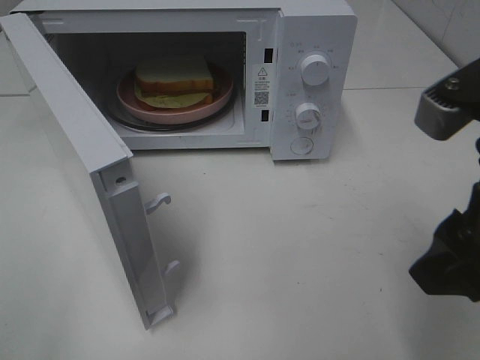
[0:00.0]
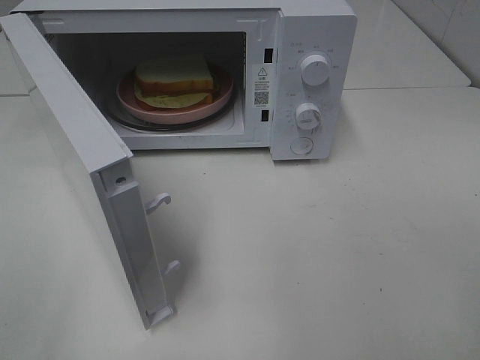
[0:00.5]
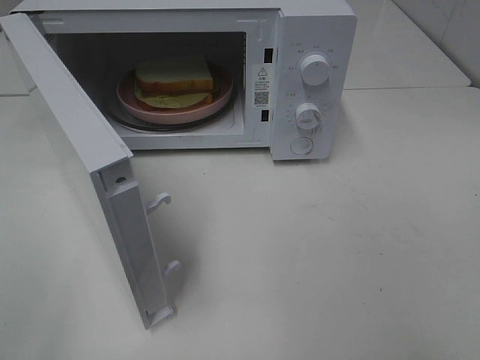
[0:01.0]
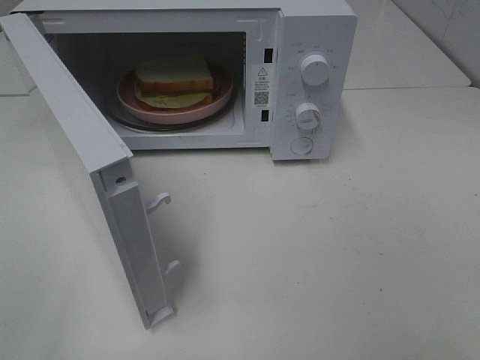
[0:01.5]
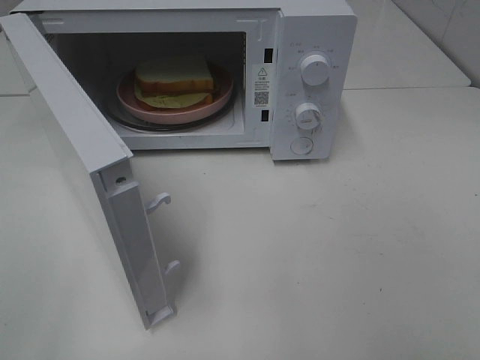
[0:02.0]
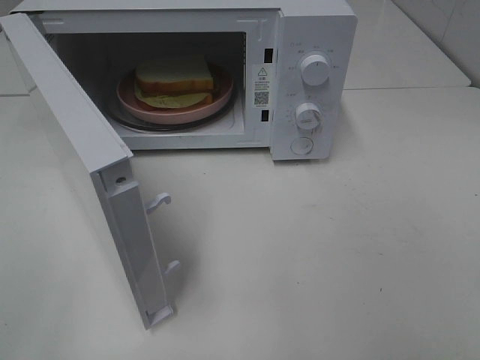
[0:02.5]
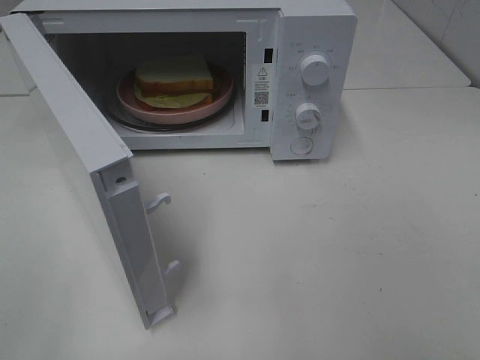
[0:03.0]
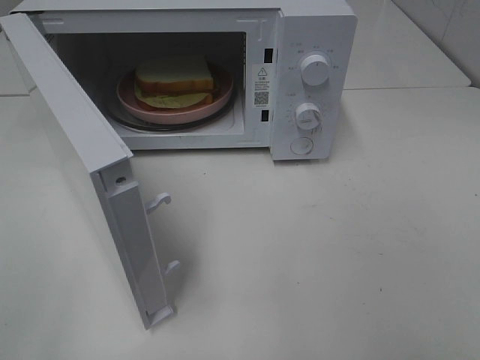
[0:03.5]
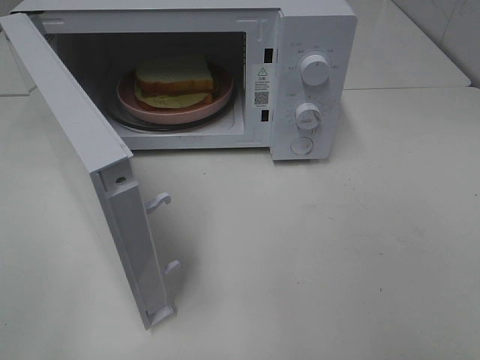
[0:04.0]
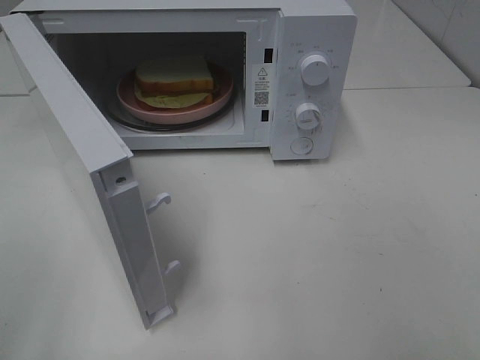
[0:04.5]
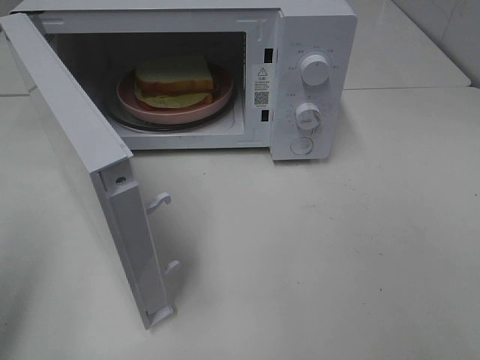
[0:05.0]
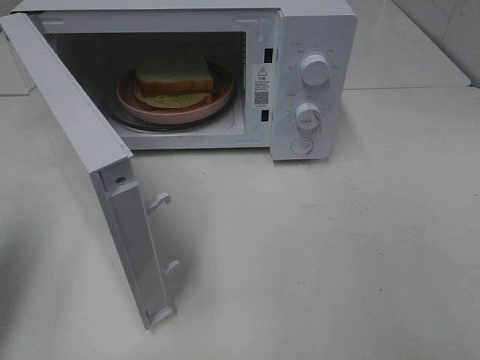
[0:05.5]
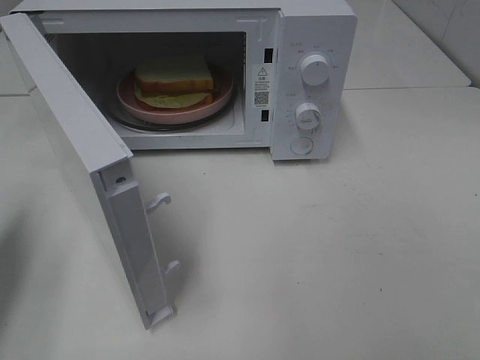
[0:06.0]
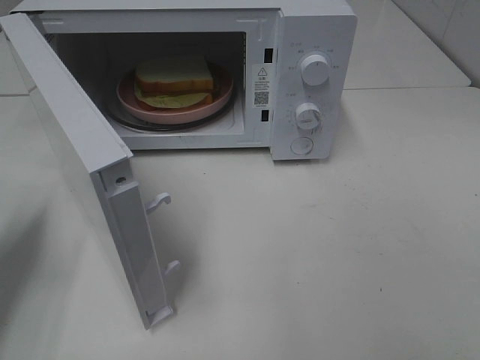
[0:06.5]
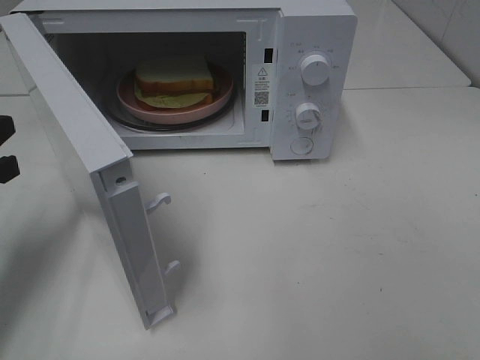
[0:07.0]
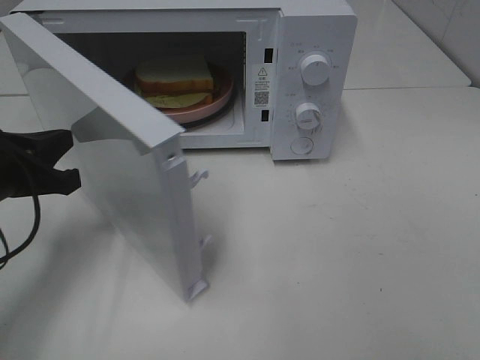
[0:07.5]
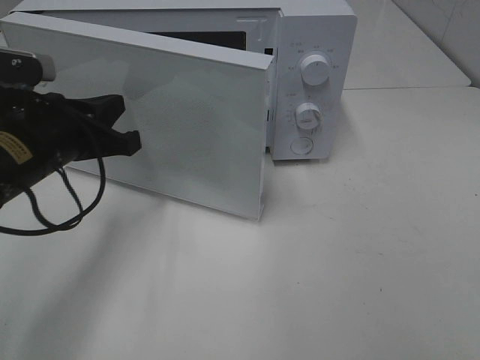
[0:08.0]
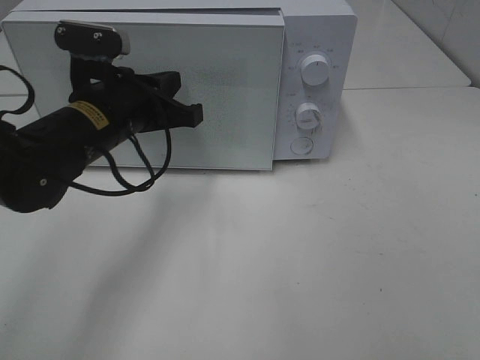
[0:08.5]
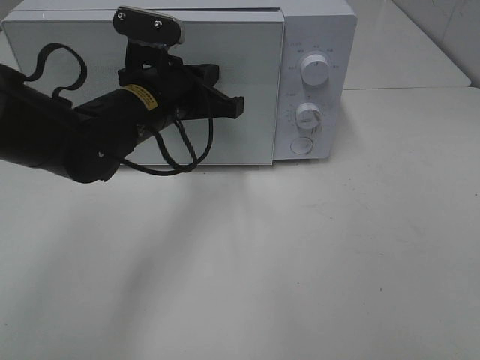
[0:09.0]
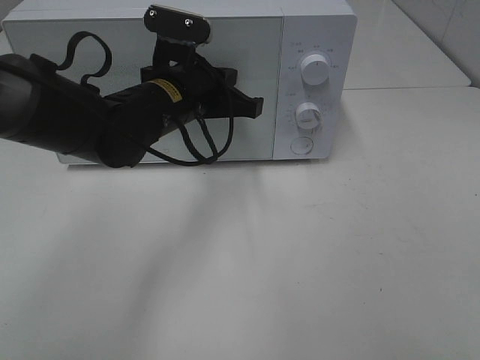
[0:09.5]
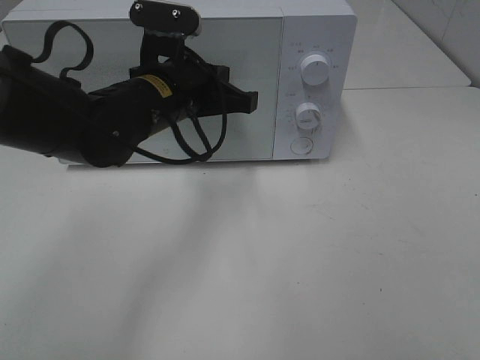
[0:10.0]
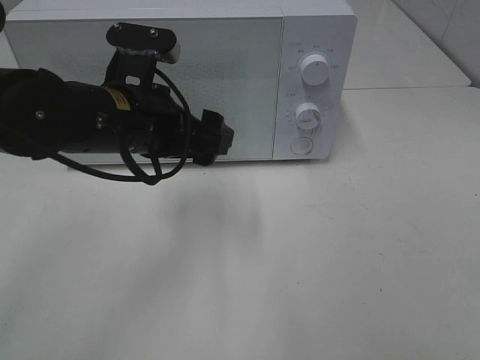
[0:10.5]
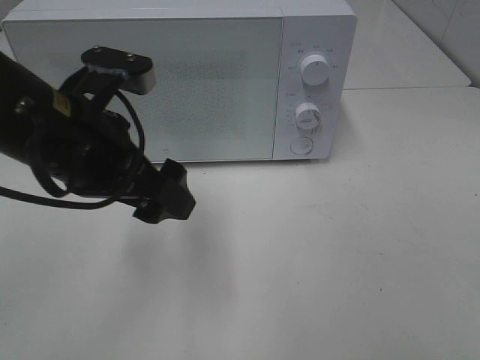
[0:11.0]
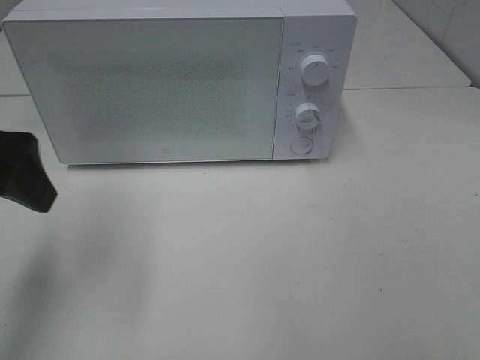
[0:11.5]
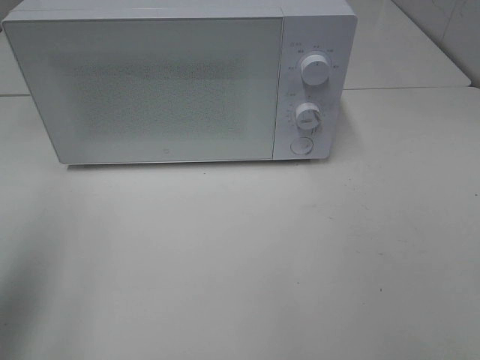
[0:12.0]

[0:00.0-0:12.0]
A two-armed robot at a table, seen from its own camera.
Task of the whole recording: Heat Sandwich.
Step, 0:00.0 to 0:09.5: Left hand: close the microwave door.
0:00.0 to 0:02.0: The right gripper moves backward and to the right, some 15 cm.
0:02.0 to 0:04.0: Both grippers stay about where they are.
0:04.0 to 0:06.0: The left gripper moves forward, roughly 20 cm, and closes its fingers.
0:06.0 to 0:08.0: The left gripper heads to the right and forward, covering about 15 cm.
0:08.0 to 0:10.0: The left gripper is displaced to the right and forward by some 15 cm.
0:10.0 to 0:12.0: The left gripper travels to the left, backward and upward by roughly 30 cm, and opens its fingers.

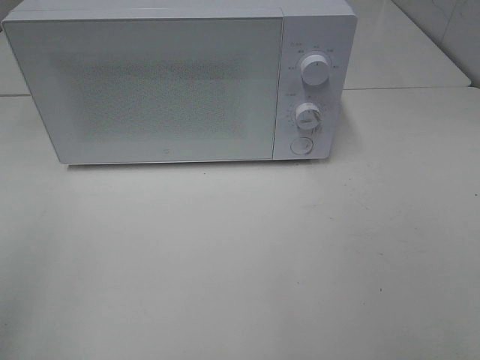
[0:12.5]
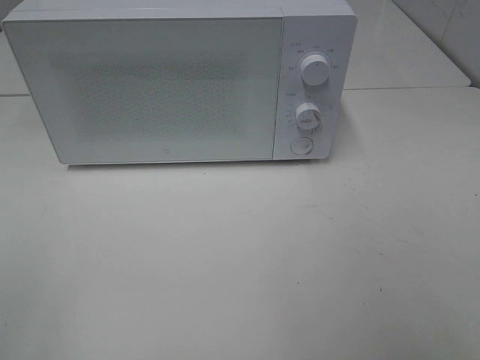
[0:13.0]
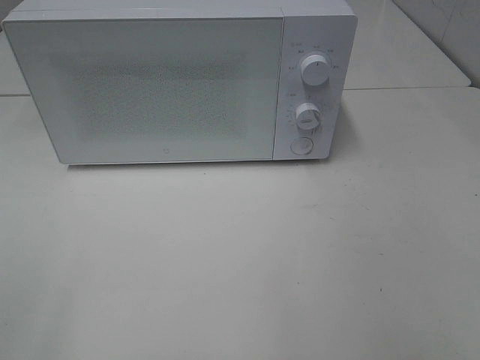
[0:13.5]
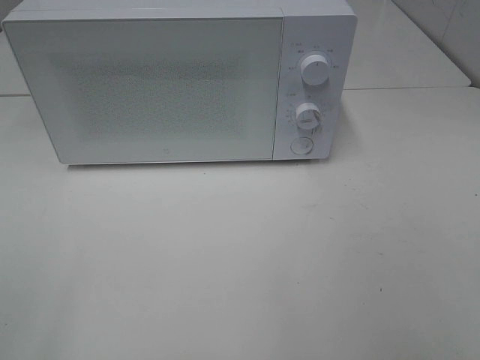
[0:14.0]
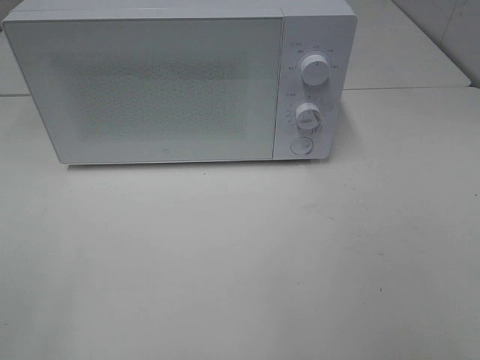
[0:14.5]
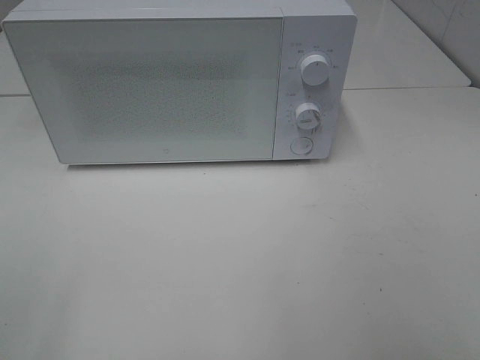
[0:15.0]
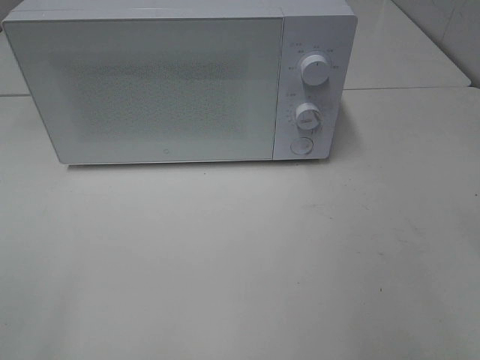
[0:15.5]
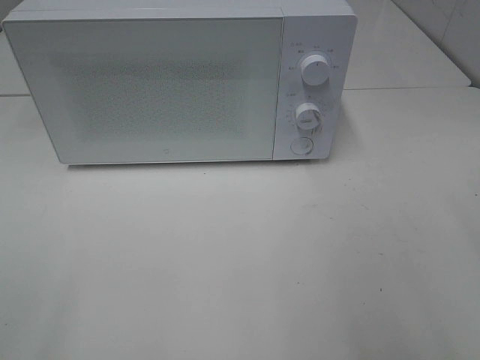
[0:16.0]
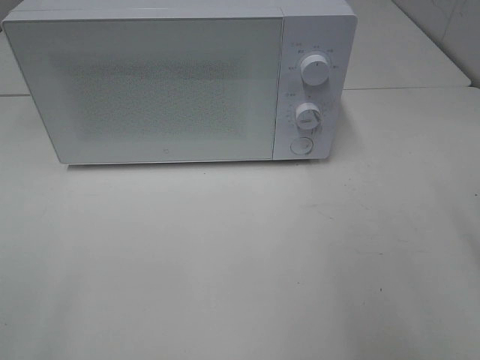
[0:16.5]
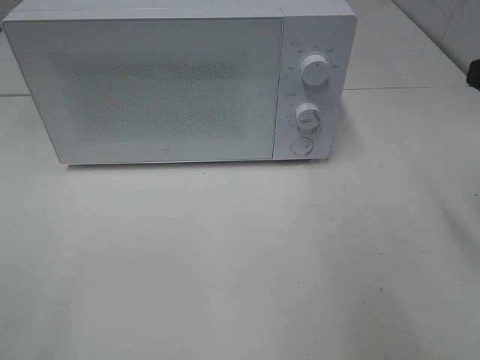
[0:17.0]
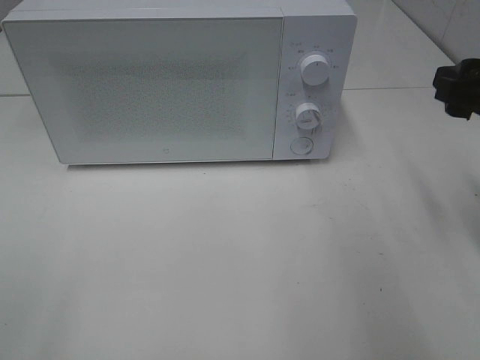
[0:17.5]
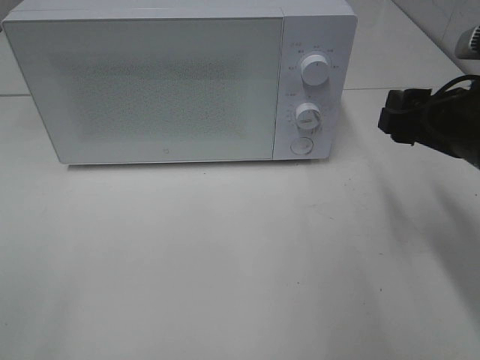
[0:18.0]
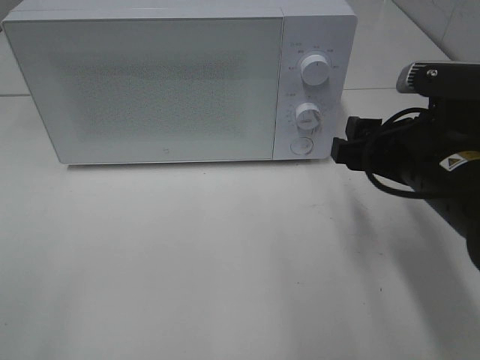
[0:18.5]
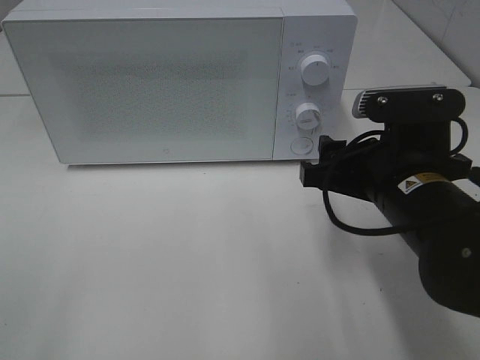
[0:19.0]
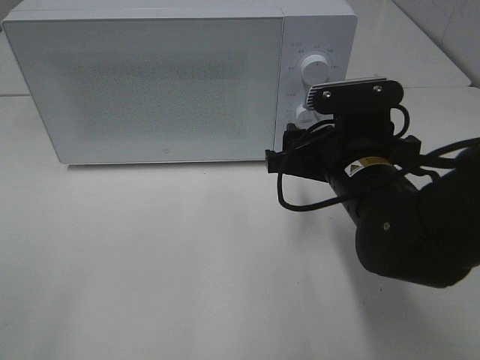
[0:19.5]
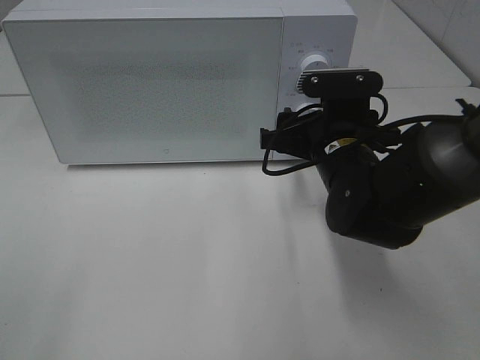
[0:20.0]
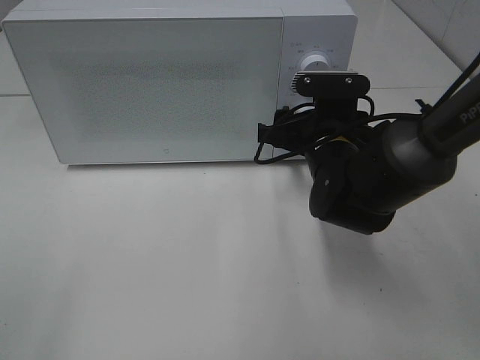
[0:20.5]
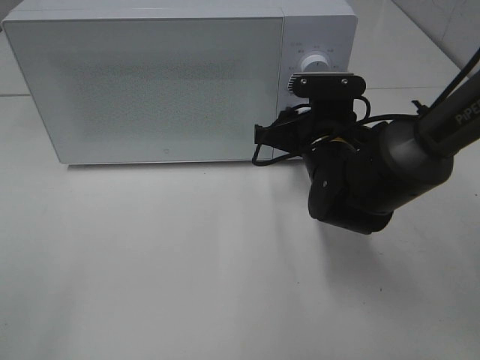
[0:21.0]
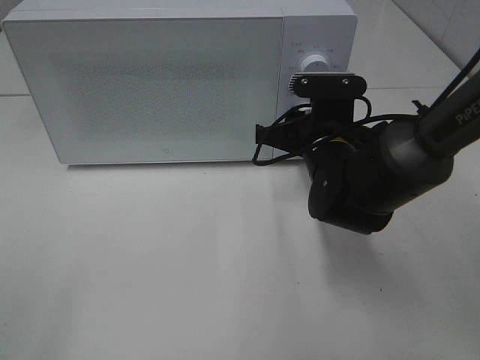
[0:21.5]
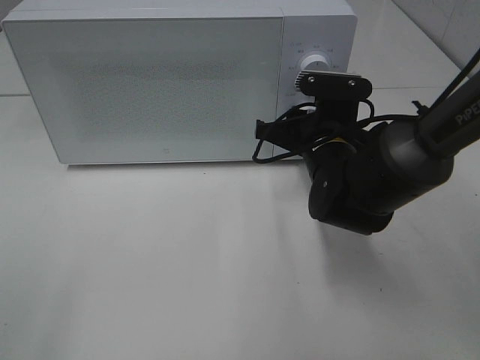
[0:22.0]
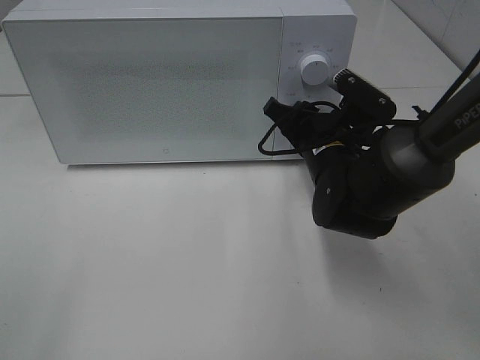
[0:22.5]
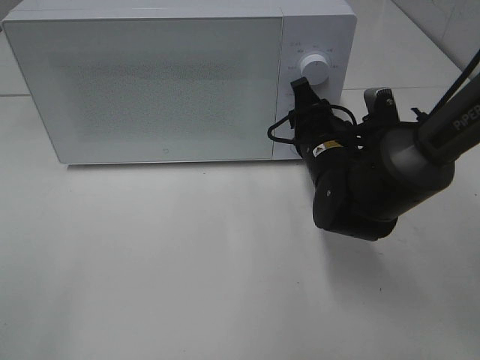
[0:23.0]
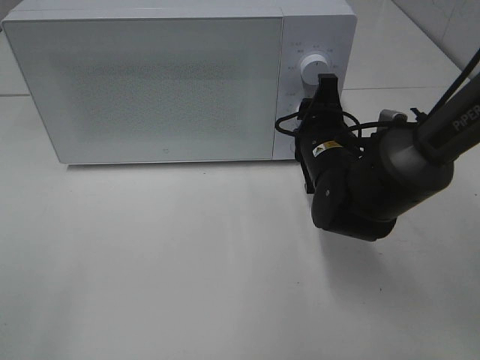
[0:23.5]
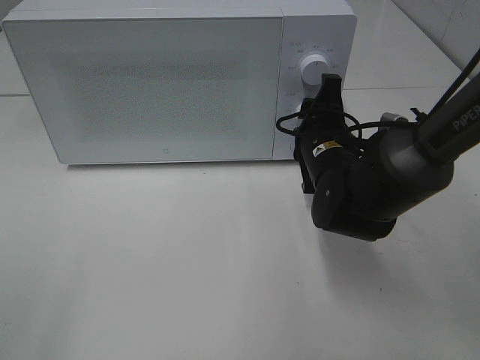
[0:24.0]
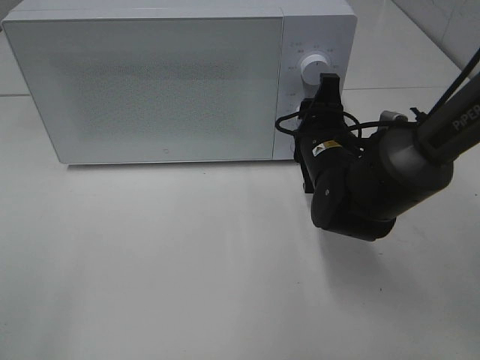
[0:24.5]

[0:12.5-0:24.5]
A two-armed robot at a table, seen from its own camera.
Task of the whole recording: Heat Sandwich.
0:16.5 to 0:18.5: The right gripper travels downward, to the left and forward by about 15 cm.
0:18.5 to 0:20.5: The right gripper is displaced forward, to the left and downward by roughly 15 cm.

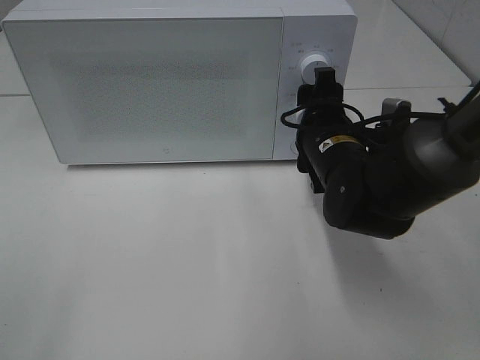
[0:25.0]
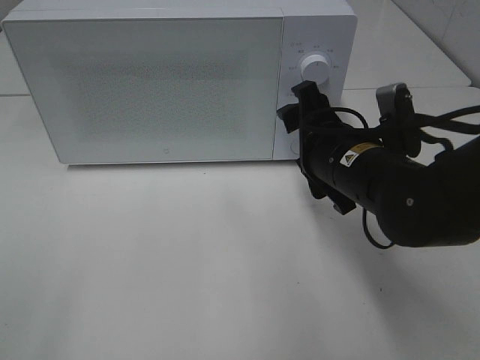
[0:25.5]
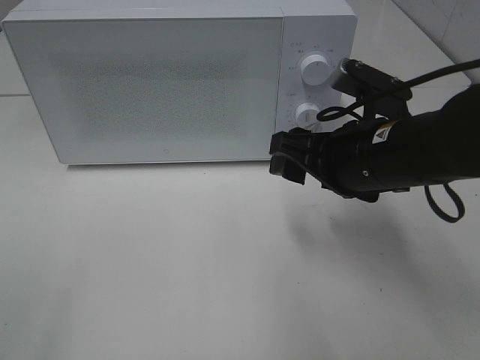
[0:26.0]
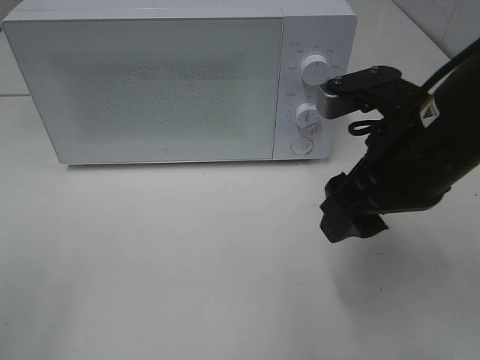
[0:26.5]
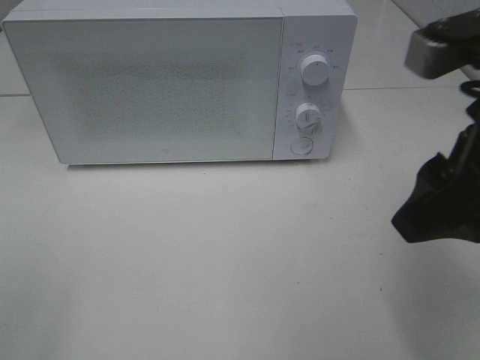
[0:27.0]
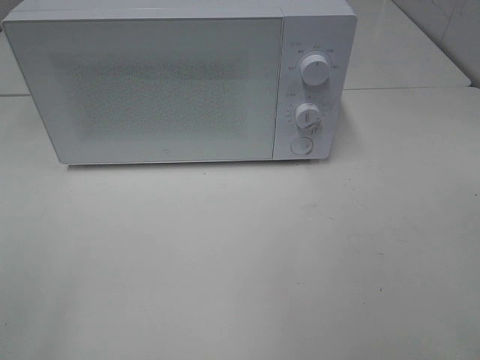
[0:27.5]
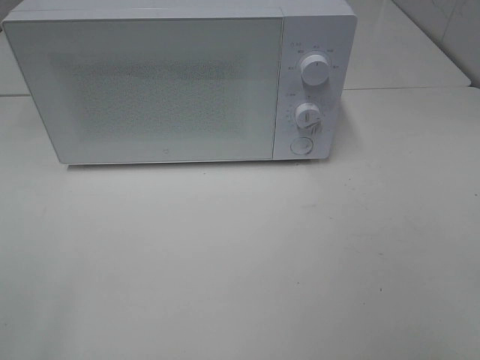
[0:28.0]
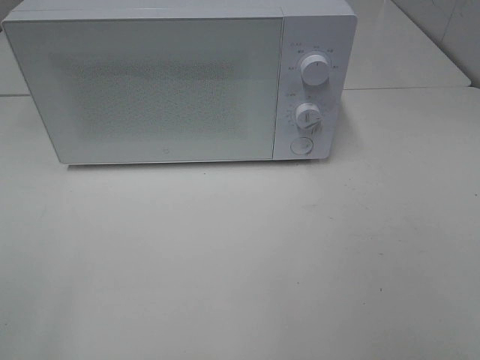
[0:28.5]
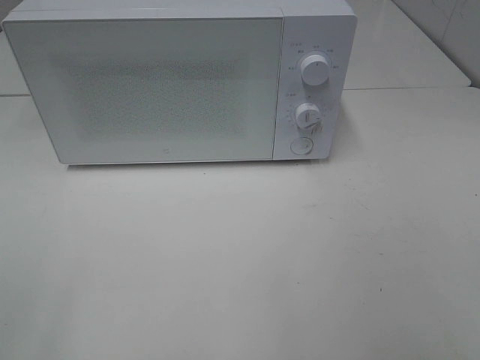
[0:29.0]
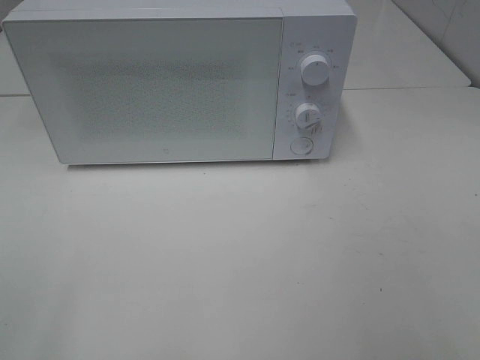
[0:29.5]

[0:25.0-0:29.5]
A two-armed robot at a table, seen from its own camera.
Task of the whole recording: Heat Sandwich.
0:25.0 to 0:27.0: The right gripper travels upward, backward and to the right by about 25 cm.
0:27.0 to 0:29.5: The right gripper moves backward and to the right, some 20 cm.
